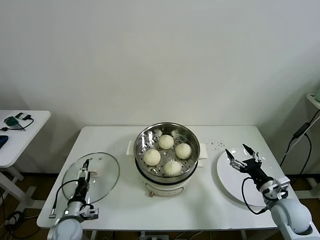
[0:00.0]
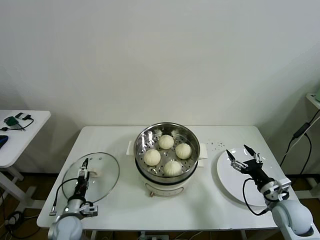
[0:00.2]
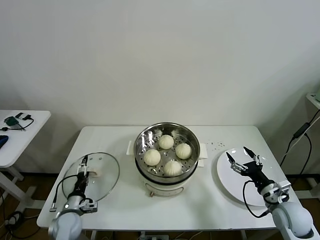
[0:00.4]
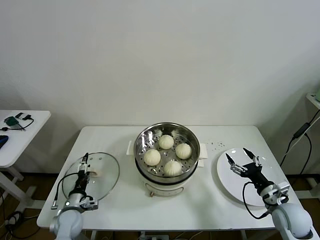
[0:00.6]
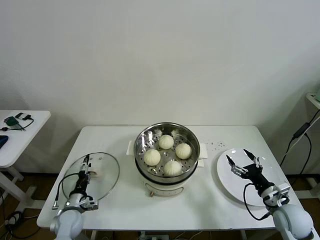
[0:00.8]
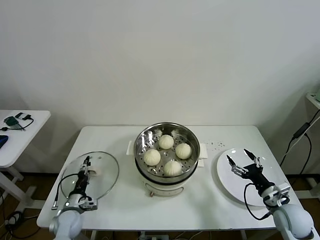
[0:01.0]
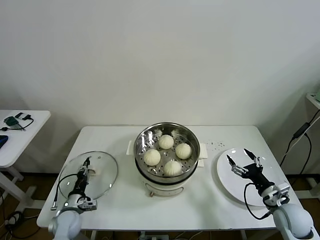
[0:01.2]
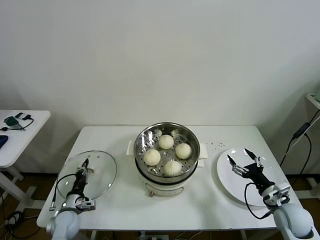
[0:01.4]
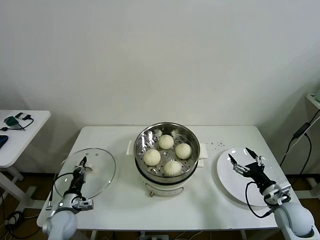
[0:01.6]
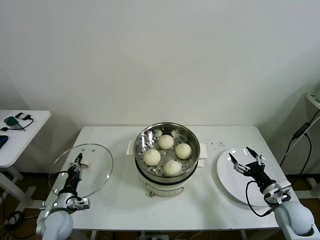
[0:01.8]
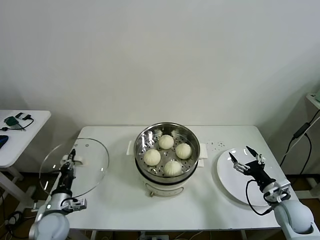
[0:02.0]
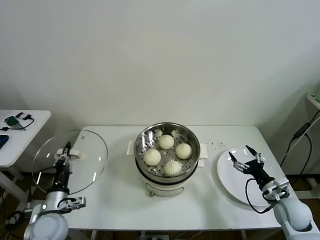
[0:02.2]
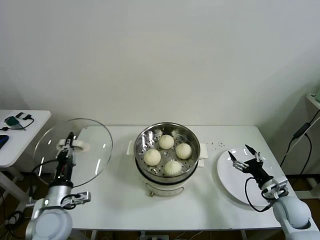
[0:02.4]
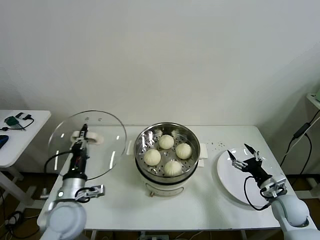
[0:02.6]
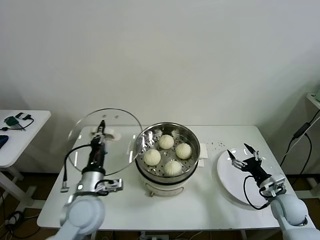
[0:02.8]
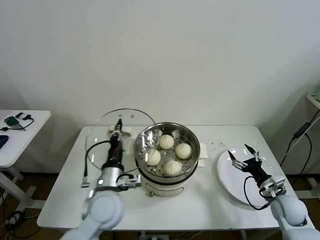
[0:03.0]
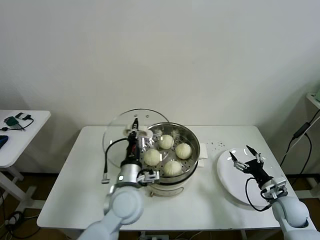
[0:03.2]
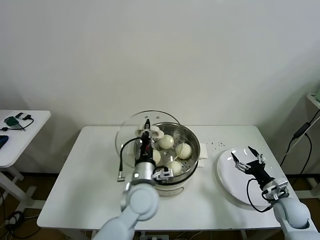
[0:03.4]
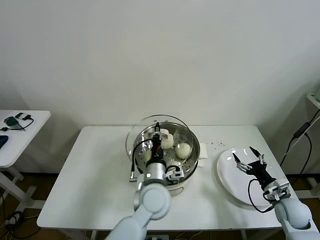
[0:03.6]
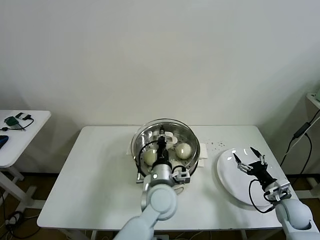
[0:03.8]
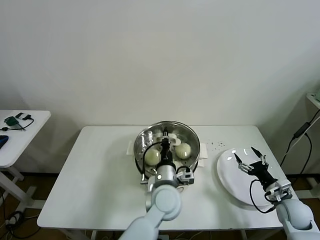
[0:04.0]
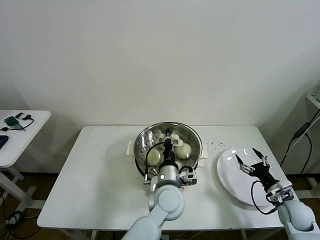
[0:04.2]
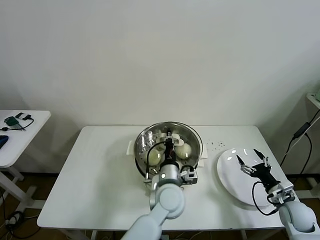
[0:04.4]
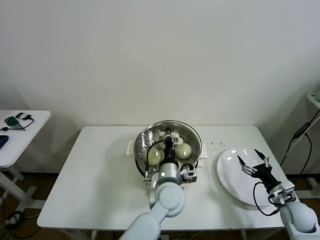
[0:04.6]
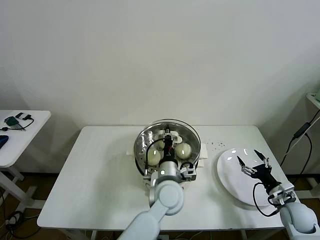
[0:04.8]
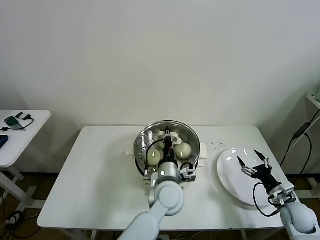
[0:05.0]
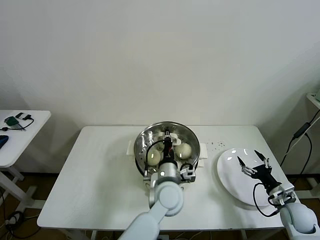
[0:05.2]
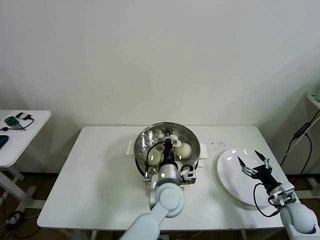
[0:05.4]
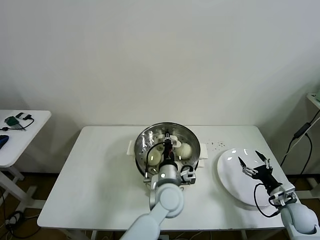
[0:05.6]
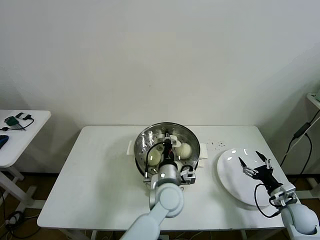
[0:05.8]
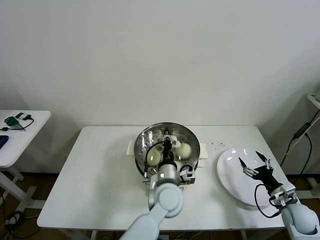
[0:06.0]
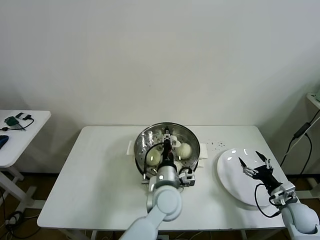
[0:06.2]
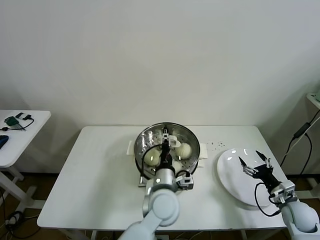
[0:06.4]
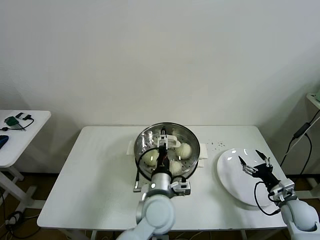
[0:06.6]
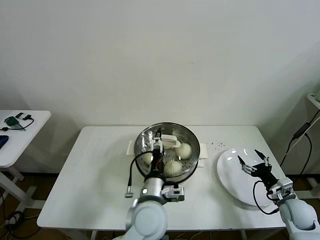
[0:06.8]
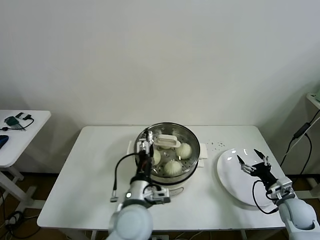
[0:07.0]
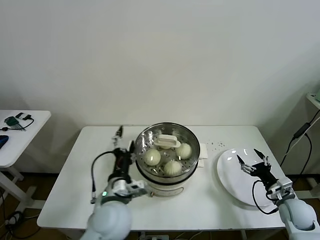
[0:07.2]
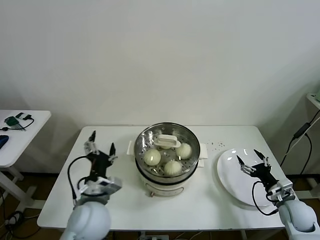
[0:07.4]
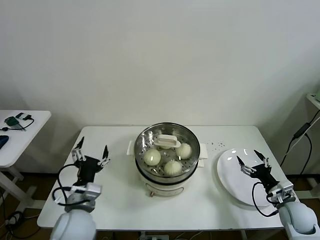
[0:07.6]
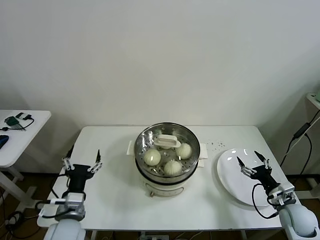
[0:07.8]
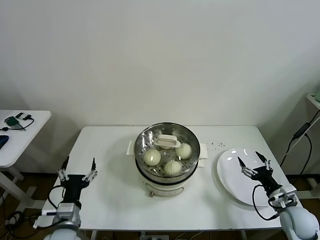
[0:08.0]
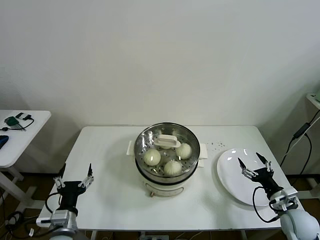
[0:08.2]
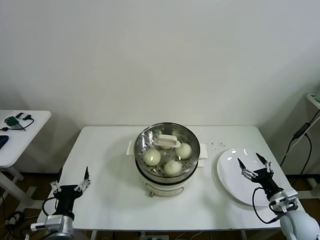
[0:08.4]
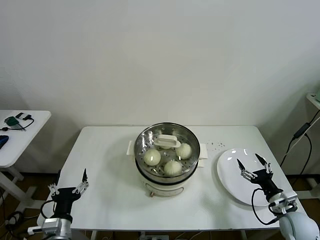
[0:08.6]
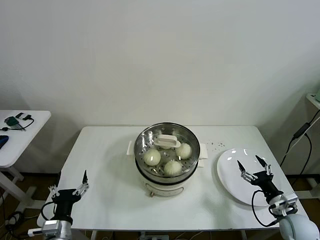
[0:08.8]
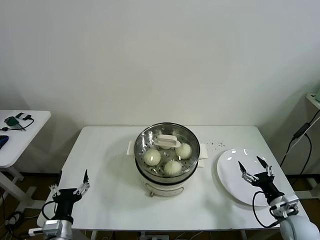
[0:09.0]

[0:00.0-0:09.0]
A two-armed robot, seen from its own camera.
Task of the whole recording: take steamed baozi put them in steamer then cover it.
Step, 0:01.6 to 0:06.6: Place the pot lid on the steamer with left gripper.
0:00.0 to 0:01.6: The left gripper closes up.
0:01.6 to 0:03.0: The left gripper goes about 30 cm upward and to the right.
0:03.0 to 0:04.4: The left gripper shifts approximately 20 cm to the right.
0:04.4 to 0:06.0: The two grippers keep their place.
0:06.0 to 0:07.6: The left gripper heads to the left, covering some 25 cm, and opens its fingers.
0:07.6 to 0:09.0: The left gripper moves downward, to the left and backward, some 15 cm.
